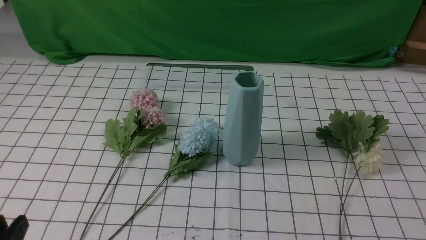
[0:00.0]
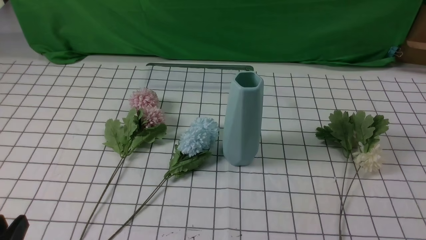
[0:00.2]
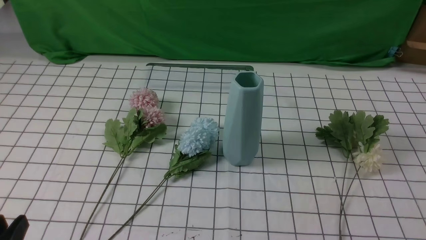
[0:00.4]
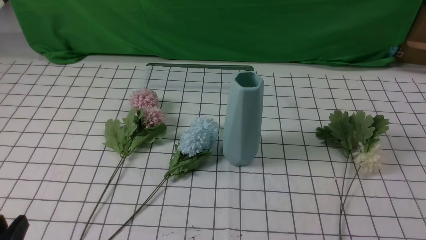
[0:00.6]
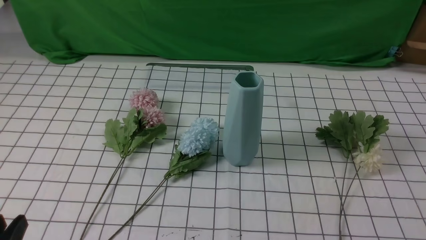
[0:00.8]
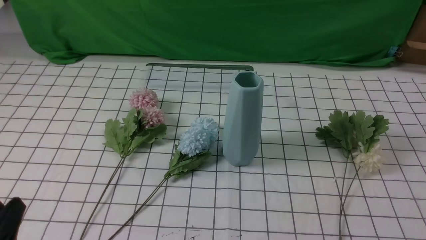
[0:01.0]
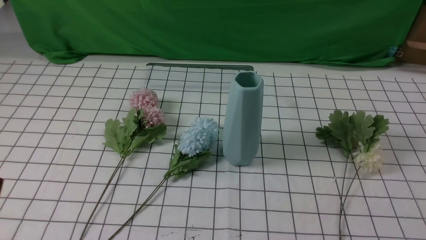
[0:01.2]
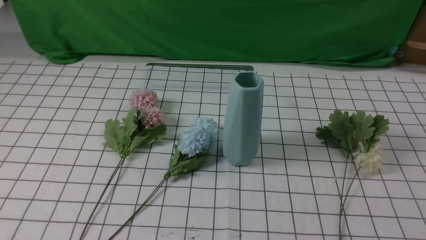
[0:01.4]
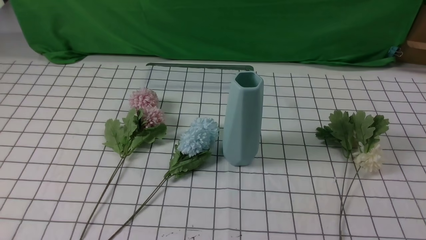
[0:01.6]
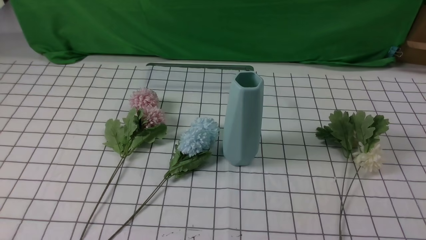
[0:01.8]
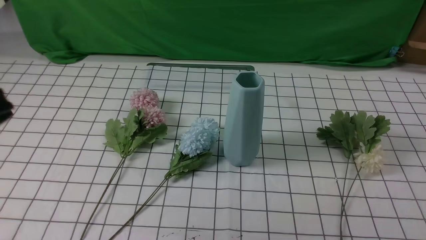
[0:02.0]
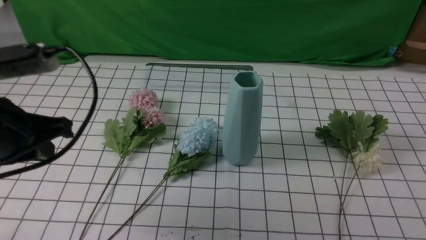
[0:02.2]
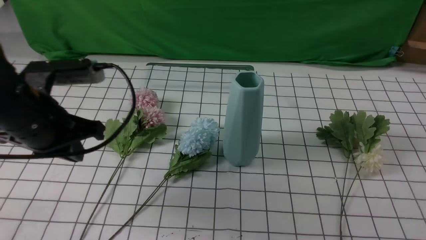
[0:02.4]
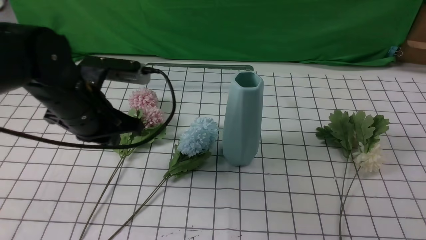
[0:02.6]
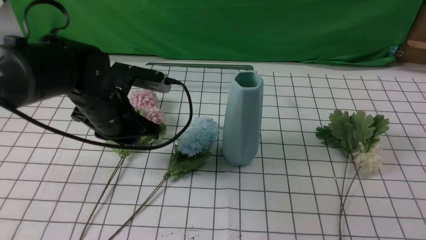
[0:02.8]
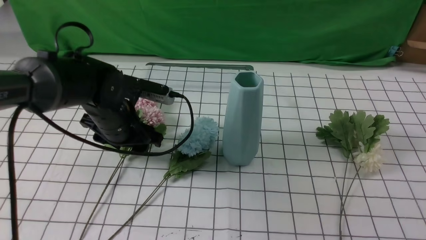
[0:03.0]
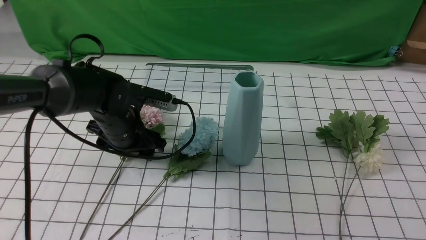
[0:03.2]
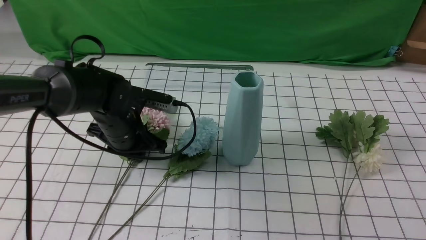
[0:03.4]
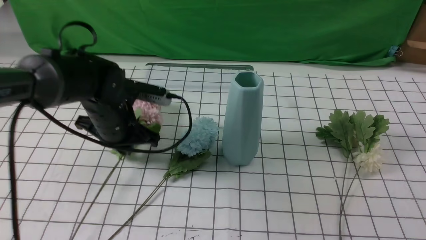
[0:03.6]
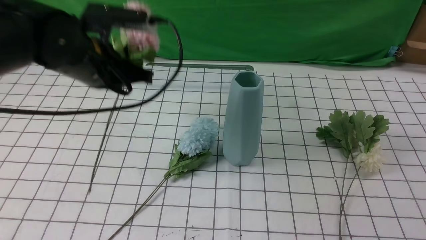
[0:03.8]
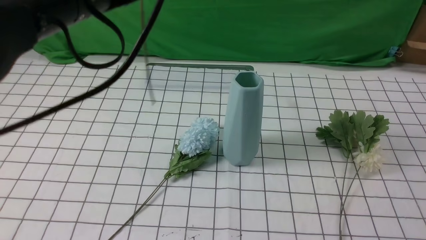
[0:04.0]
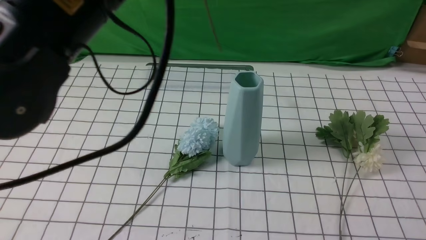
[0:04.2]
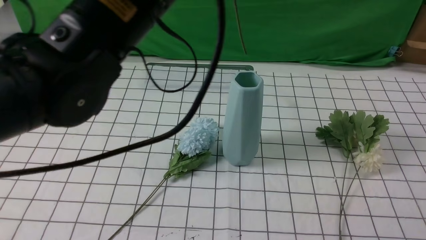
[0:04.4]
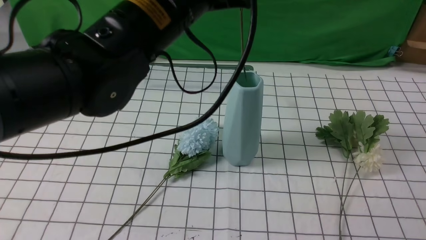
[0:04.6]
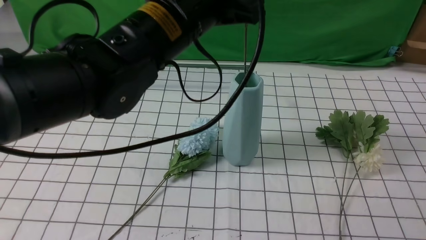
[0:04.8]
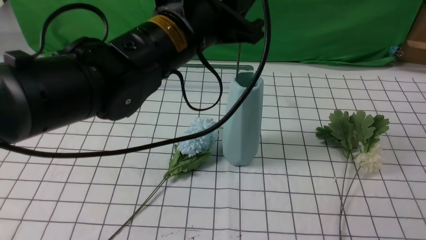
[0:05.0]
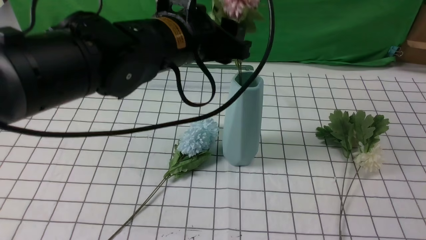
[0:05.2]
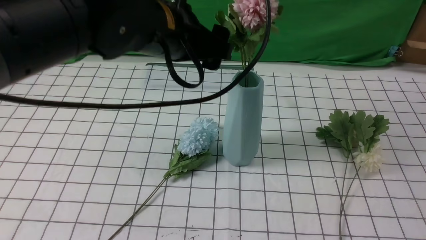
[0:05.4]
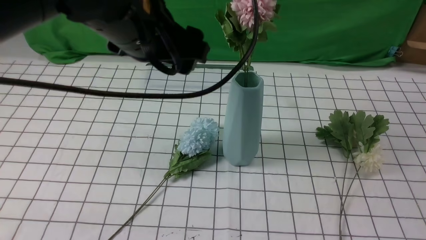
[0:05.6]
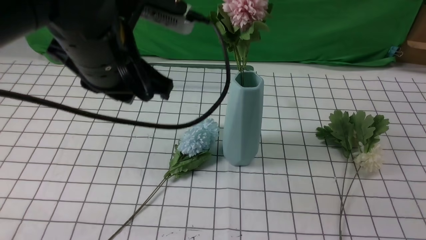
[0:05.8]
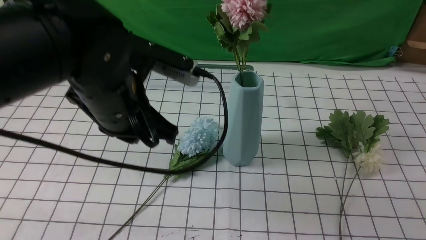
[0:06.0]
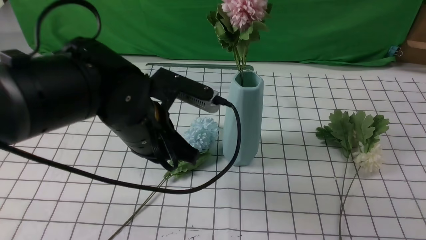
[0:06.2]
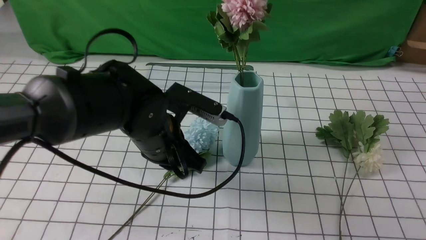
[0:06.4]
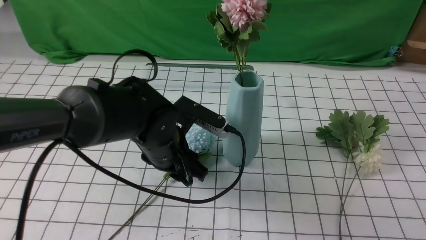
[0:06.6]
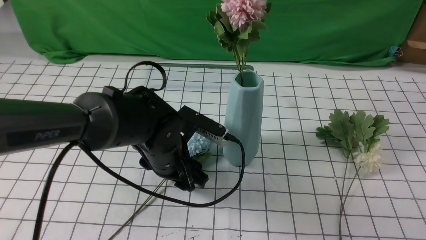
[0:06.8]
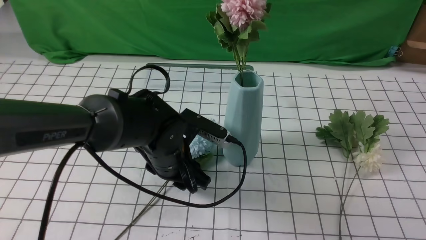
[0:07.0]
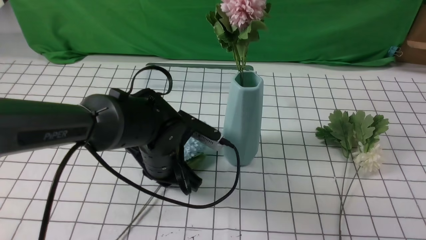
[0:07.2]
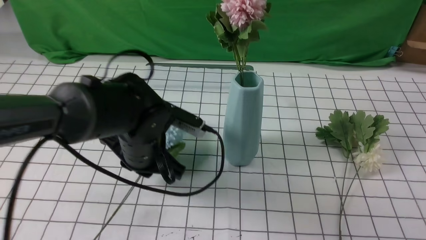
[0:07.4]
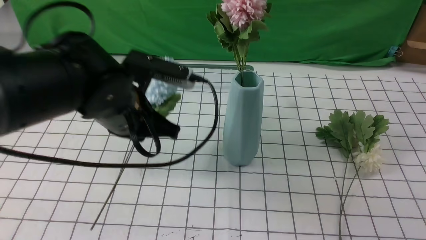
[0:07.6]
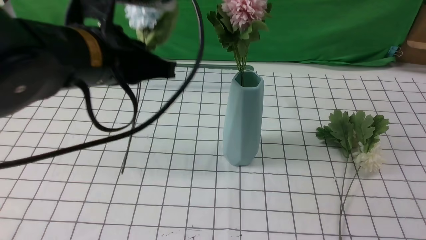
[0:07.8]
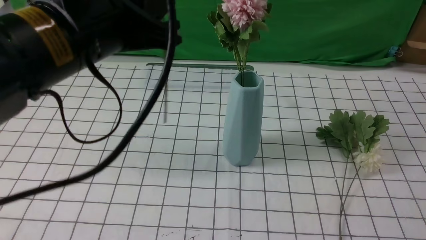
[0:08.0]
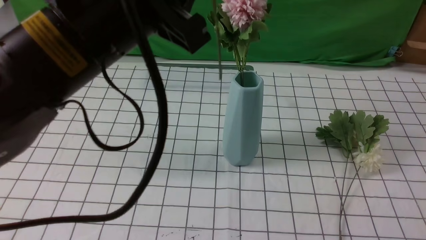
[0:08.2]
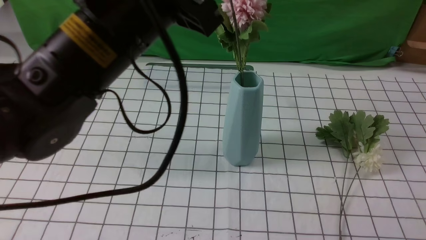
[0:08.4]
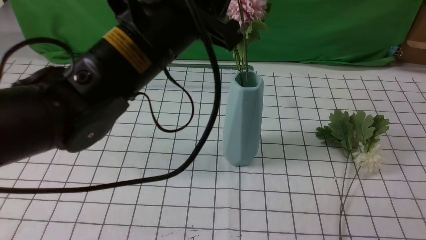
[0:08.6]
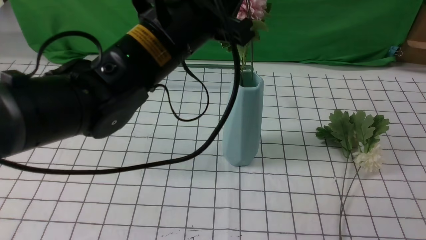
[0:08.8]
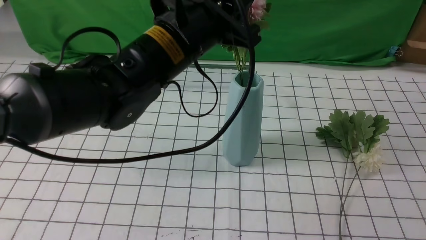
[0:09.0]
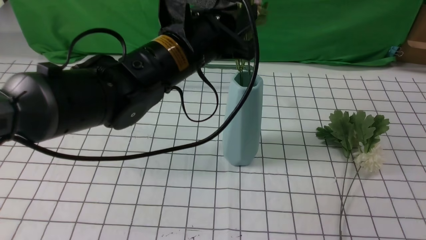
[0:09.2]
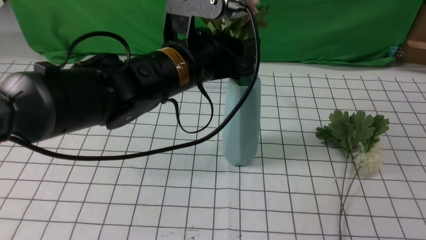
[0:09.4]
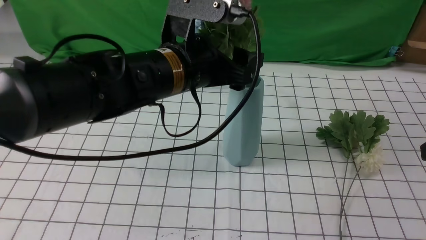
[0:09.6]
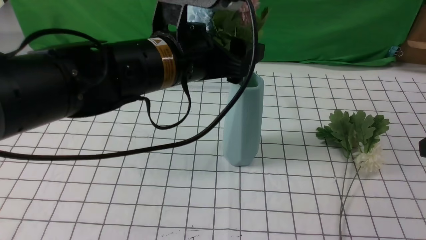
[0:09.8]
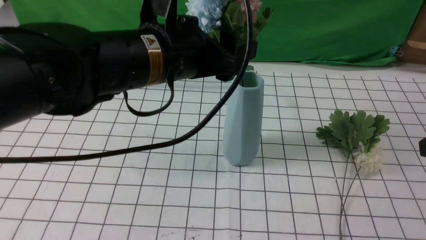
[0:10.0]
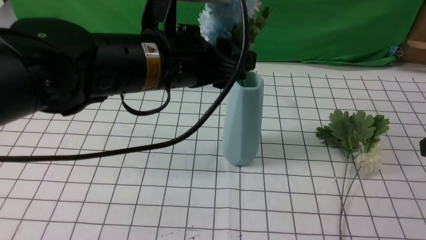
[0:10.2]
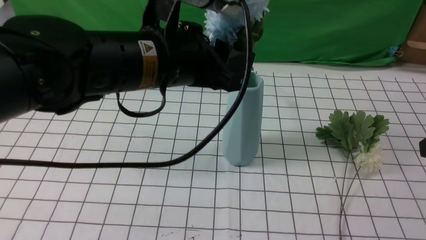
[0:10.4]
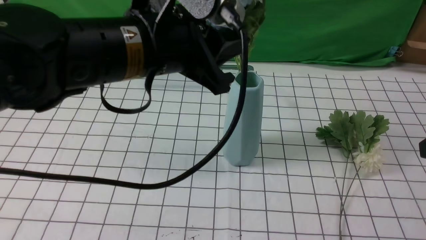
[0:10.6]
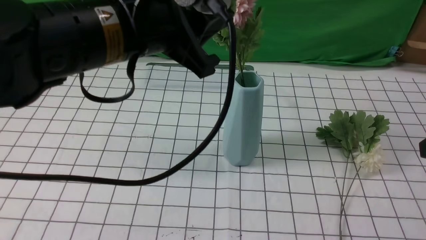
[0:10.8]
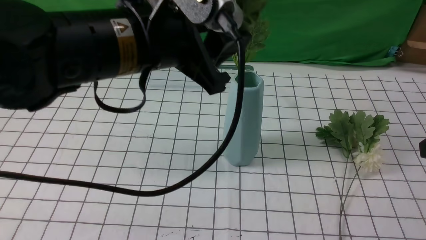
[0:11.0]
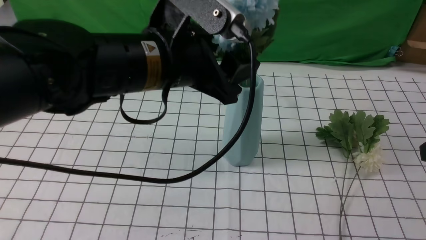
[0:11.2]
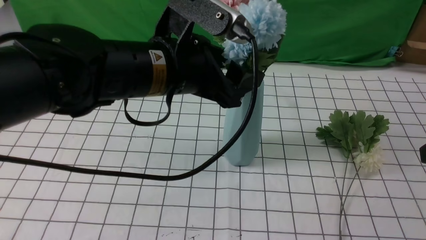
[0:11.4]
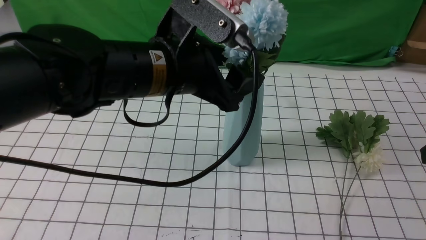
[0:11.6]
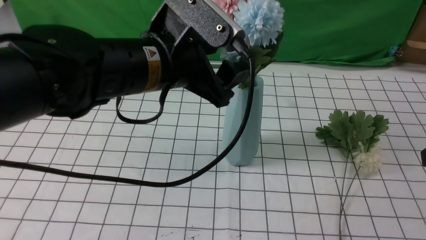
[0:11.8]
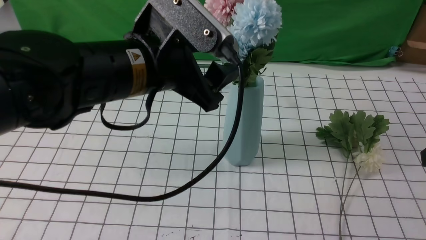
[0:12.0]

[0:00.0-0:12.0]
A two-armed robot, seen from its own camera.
Task of the whole recording: insert the flowers into the vase on the table with the white tablecloth.
Step, 0:00.0 to 0:03.4: use the left arm to grab a bunch of fresh flowers.
Step, 0:03.6 to 0:05.4: use the left arm to insert the flowers into the vase.
Step, 0:05.6 to 0:07.4: use the left arm to grab a bunch of fresh flowers.
0:01.6 to 0:03.0: The right gripper heads forward and upward, covering some 15 cm; the left gripper moves forward, approximately 30 cm, and opens.
0:03.0 to 0:04.4: The left gripper goes about 20 cm upward, and closes up.
0:04.4 to 0:06.0: The left gripper moves downward, about 10 cm, and opens, then closes once more.
0:06.0 to 0:07.6: The left gripper goes downward and returns, some 15 cm each way, and opens, then closes once more.
0:07.6 to 0:09.0: The left gripper heads to the right, covering approximately 5 cm.
0:09.0 to 0:10.4: The right gripper opens. The left gripper shifts roughly 5 cm backward, and opens and closes again.
0:10.4 to 0:12.0: The left gripper opens.

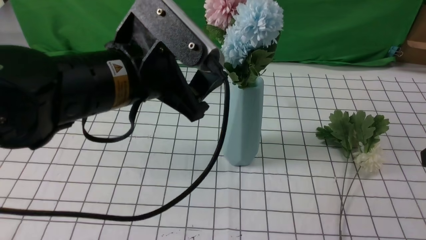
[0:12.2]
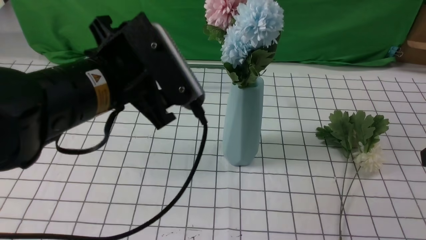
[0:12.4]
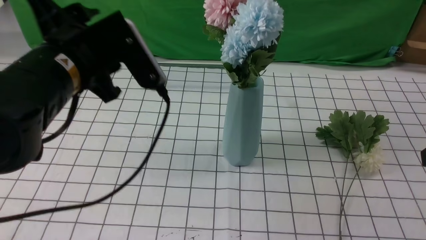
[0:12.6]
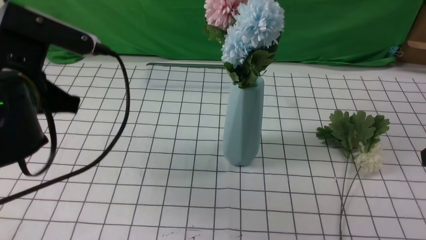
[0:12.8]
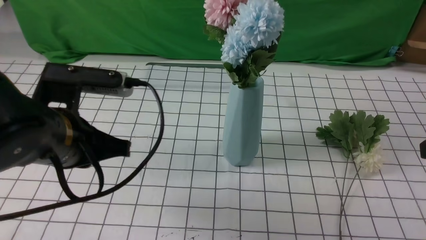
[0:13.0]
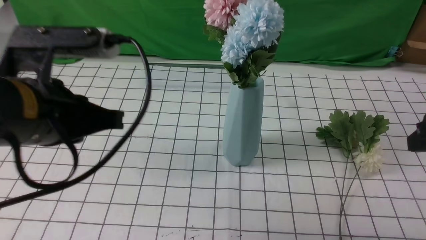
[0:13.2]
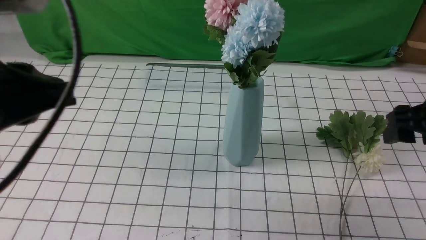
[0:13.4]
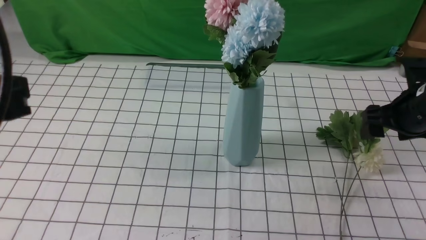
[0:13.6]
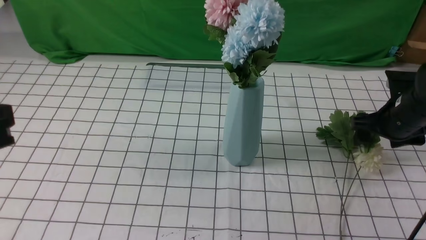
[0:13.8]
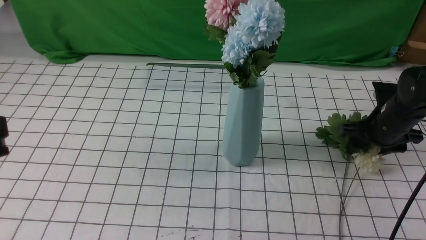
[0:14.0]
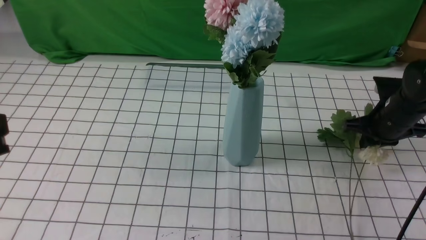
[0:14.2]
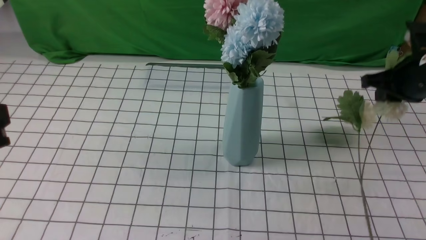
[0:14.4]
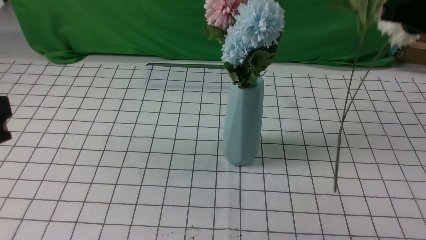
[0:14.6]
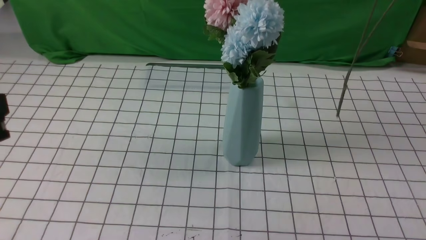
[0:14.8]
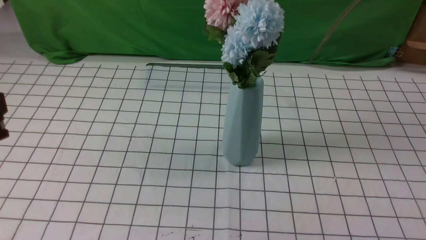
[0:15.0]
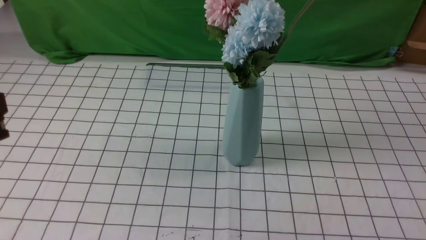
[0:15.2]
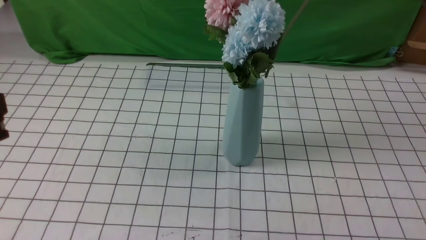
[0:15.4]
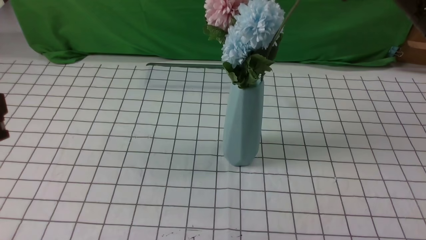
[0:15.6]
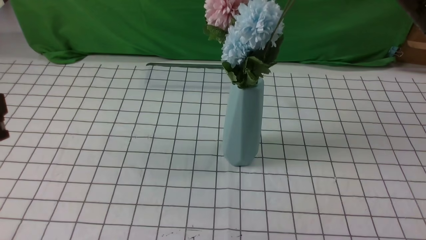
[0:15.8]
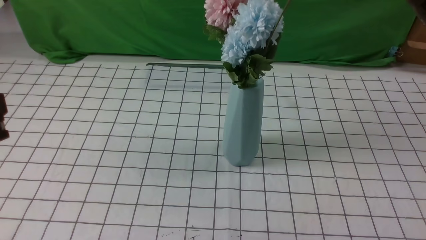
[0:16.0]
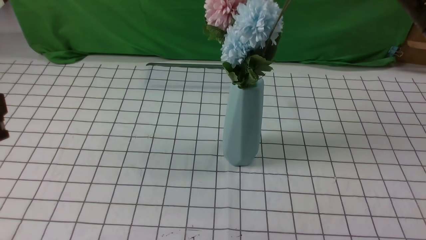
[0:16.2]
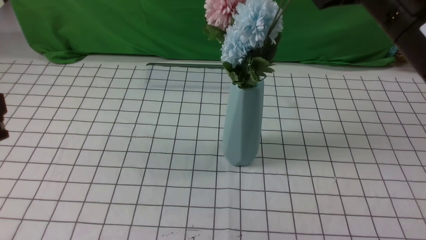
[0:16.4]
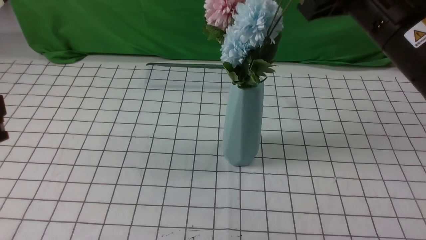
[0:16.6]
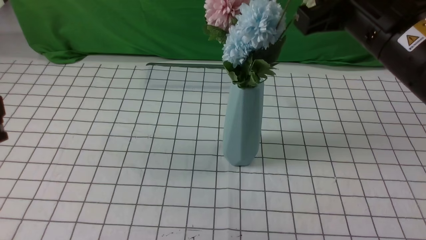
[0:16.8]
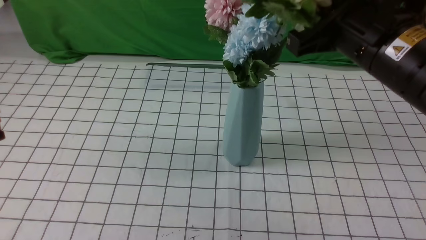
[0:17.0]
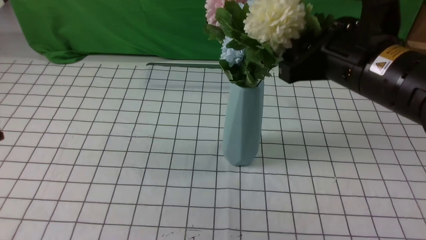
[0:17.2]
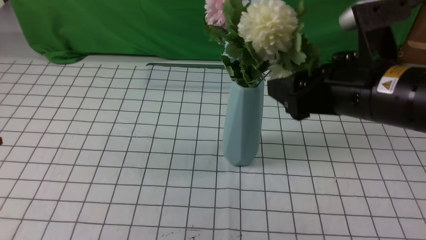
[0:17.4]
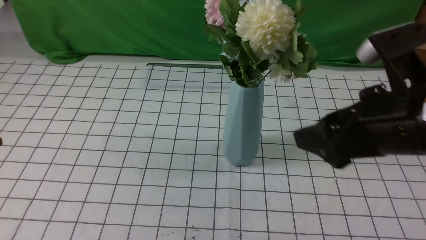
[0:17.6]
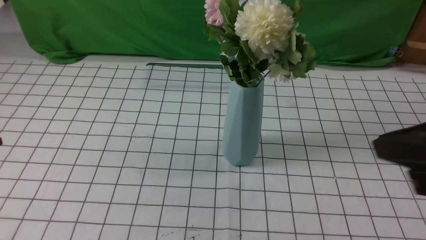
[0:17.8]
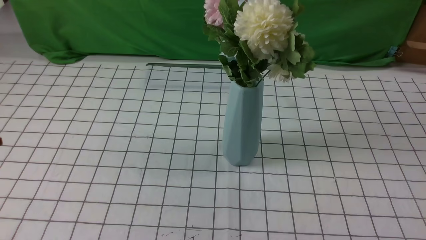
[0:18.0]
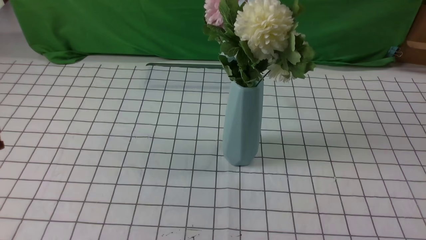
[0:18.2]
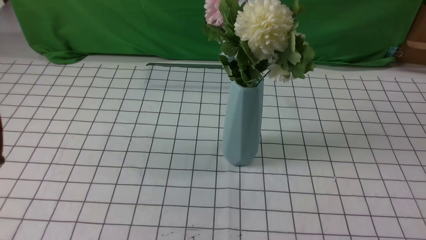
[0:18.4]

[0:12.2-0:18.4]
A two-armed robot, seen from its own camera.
Task of the whole recording: insert the flowers into the vase on the table with the white tablecloth.
Step, 0:12.4 to 0:14.2: use the right arm to grab a bunch of fresh flowers.
Step, 0:14.4 to 0:17.4: use the right arm to insert the flowers into the vase.
0:12.2 to 0:13.8: The left gripper travels backward and to the left by roughly 20 cm, and closes; the right gripper moves forward and downward, approximately 20 cm.
0:13.8 to 0:15.4: The right gripper moves upward, backward and to the left, roughly 30 cm, and closes up.
0:15.4 to 0:16.8: The right gripper moves downward, some 5 cm.
0:16.8 to 0:18.4: The right gripper travels backward and to the right by about 25 cm, and opens, then closes again.
